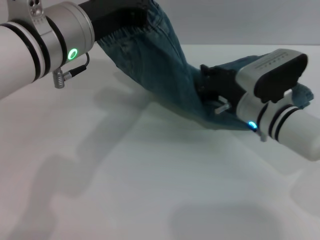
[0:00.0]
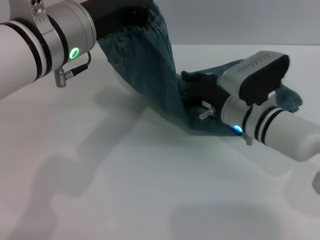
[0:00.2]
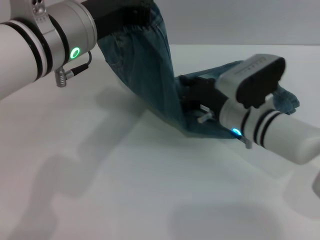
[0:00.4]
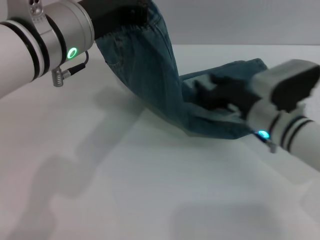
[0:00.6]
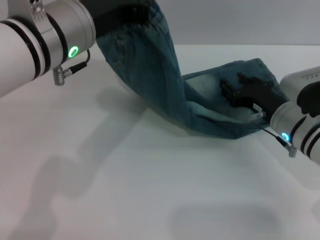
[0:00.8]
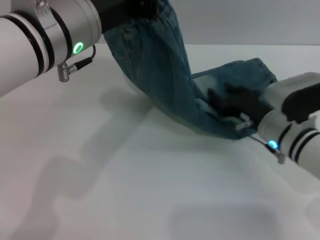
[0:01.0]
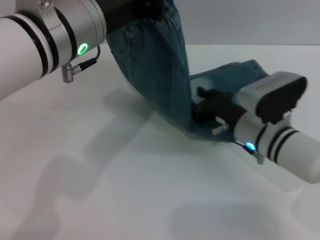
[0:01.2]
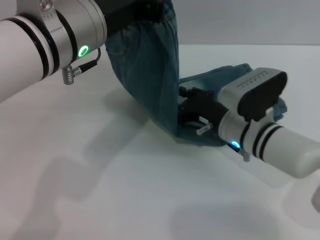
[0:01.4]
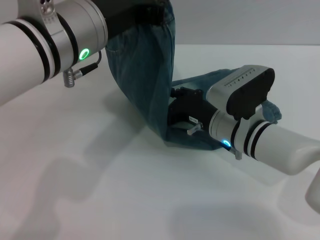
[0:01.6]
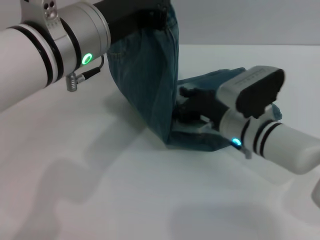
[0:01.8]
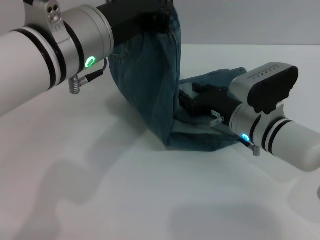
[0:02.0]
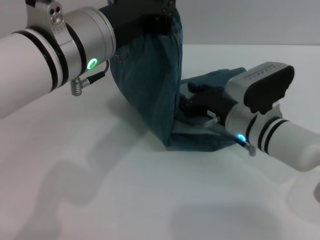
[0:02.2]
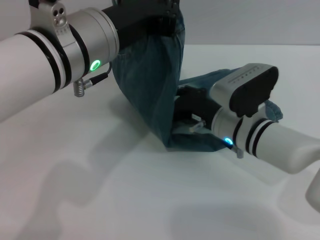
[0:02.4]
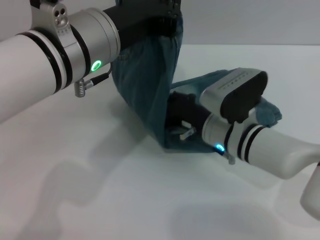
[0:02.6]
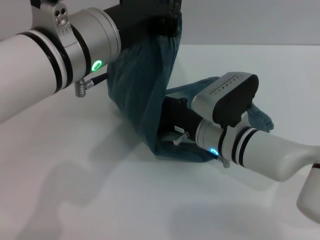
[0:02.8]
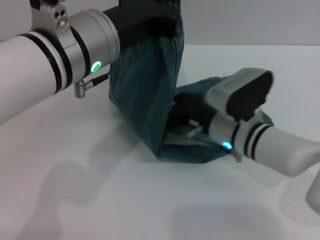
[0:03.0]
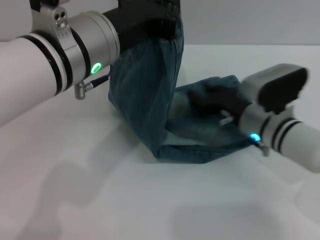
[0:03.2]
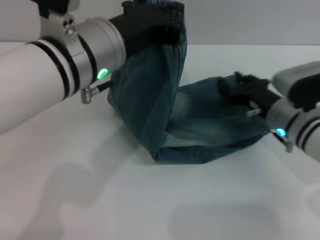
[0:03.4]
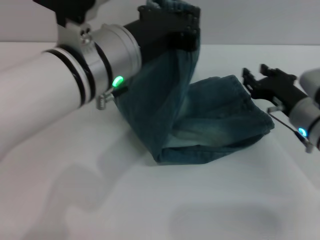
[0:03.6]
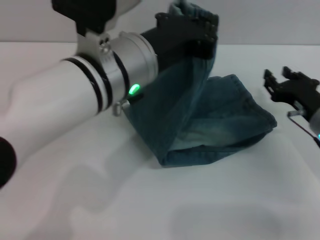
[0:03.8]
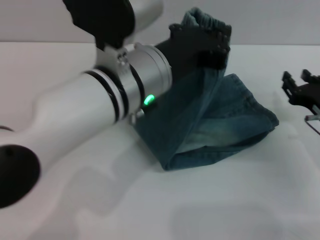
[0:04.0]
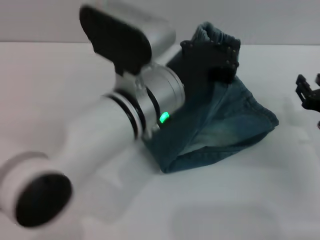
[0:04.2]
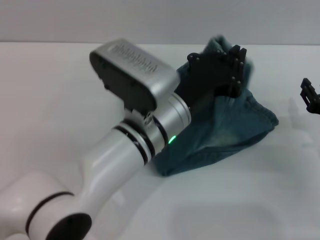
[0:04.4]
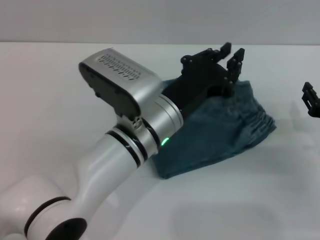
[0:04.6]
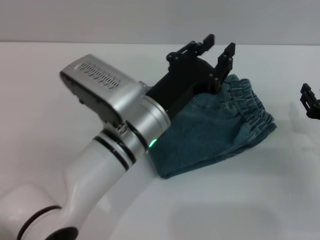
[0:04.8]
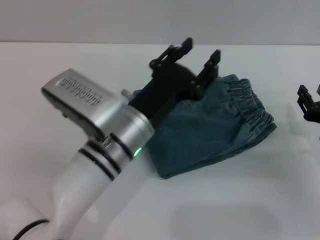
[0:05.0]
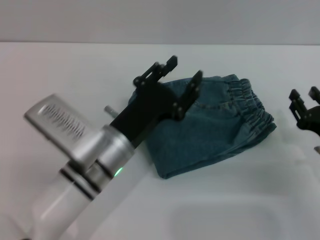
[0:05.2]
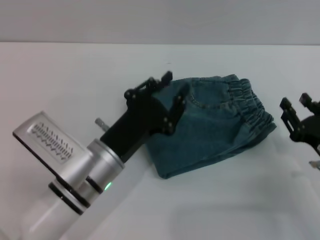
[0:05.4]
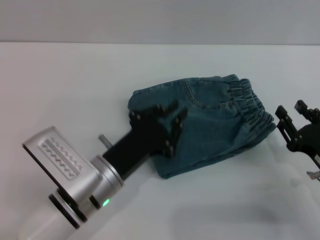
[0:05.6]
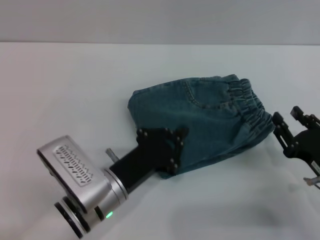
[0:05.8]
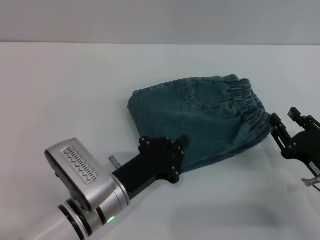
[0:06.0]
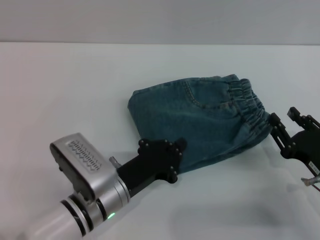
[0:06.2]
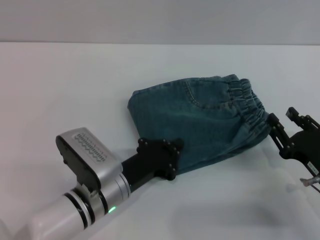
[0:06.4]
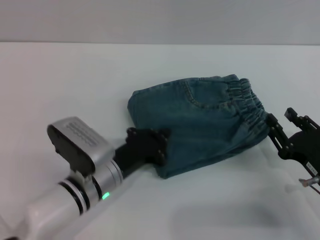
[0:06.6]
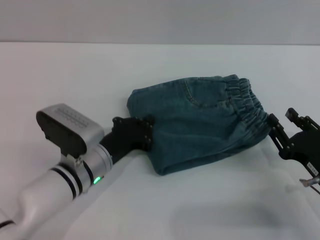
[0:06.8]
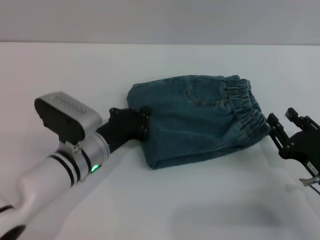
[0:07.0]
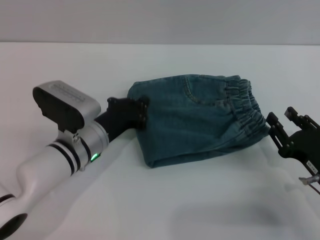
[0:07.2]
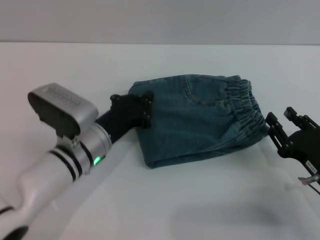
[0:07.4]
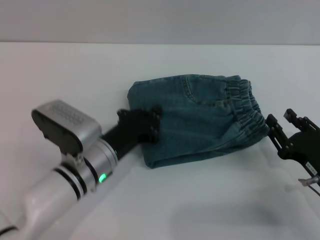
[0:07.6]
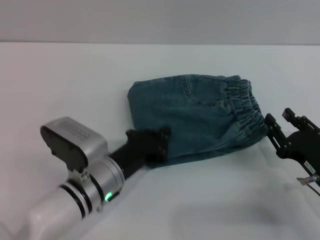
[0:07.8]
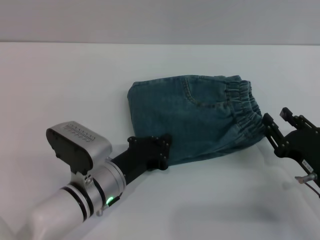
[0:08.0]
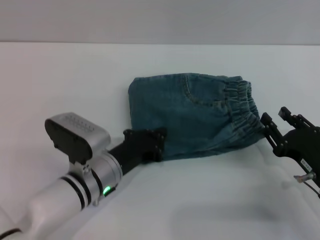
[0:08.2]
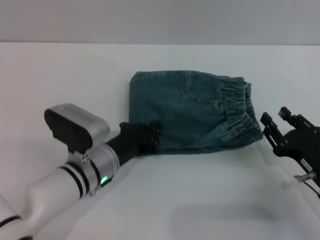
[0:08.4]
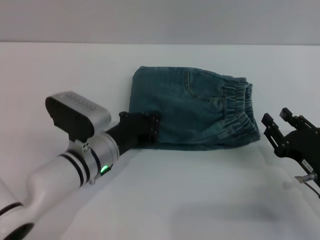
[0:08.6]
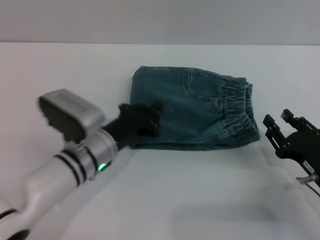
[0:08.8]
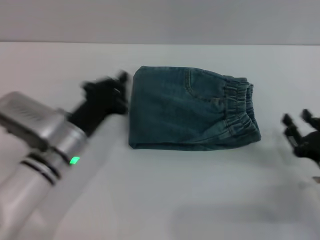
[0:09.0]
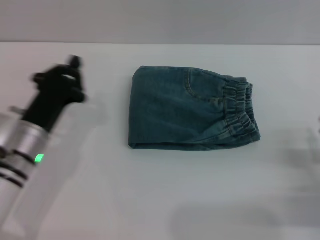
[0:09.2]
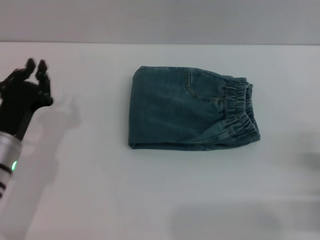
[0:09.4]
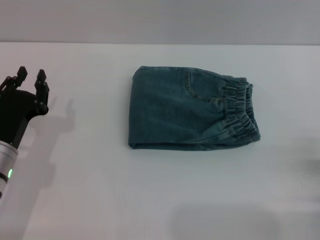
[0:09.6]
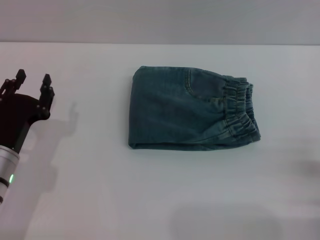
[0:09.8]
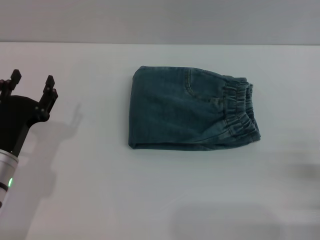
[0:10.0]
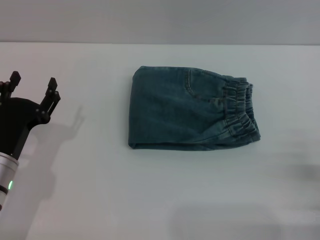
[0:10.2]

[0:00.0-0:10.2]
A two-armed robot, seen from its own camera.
Step, 0:00.0 to 0:04.8: Fold the pants from left to right with the left gripper.
Step, 0:05.0 to 0:08.8: Place the folded trousers onto the center area with the left grippers.
0:03.0 to 0:04.4: The left gripper heads downward and to the right, covering roughly 15 cm. The right gripper goes some 20 cm to the right.
0:04.4 to 0:05.8: The right gripper shifts approximately 5 cm backward, while the left gripper travels downward, to the left and backward by approximately 15 cm, and opens, then closes again.
0:05.8 to 0:07.2: The left gripper travels forward by approximately 10 cm, and closes up.
0:08.8 to 0:10.2: The right gripper heads to the right and backward, covering some 10 cm, while the left gripper heads to the left and backward, covering approximately 15 cm, and opens up.
